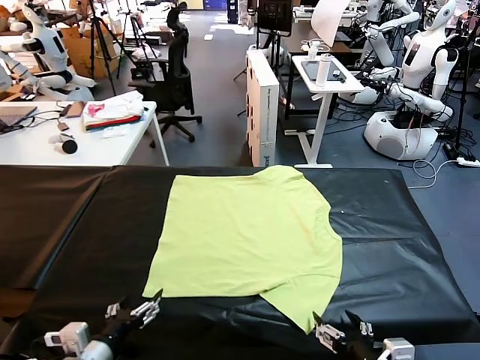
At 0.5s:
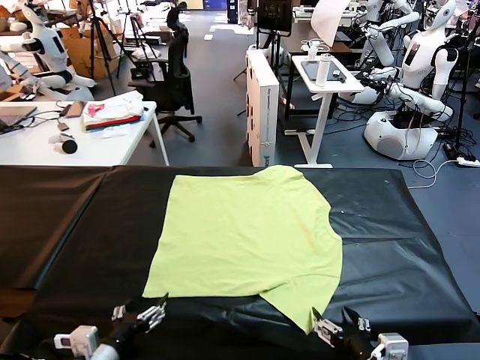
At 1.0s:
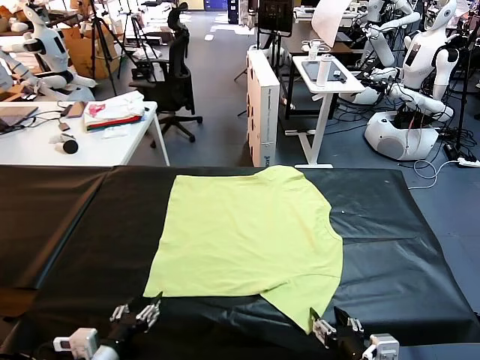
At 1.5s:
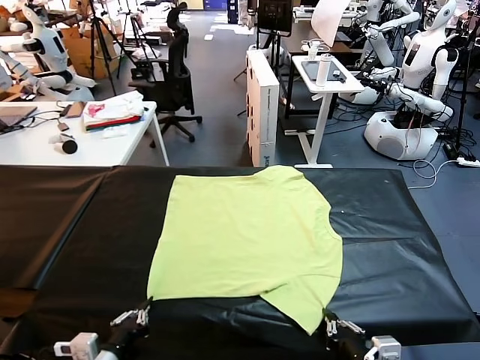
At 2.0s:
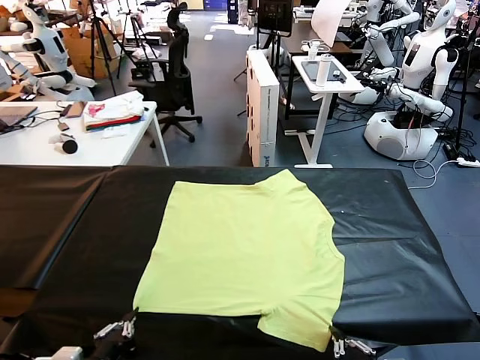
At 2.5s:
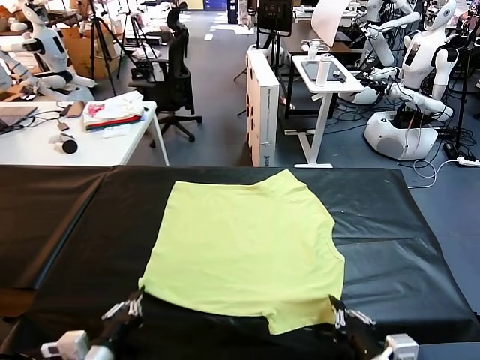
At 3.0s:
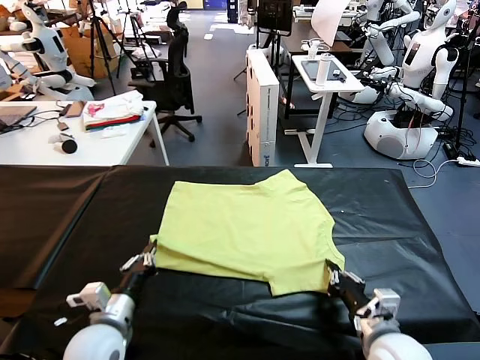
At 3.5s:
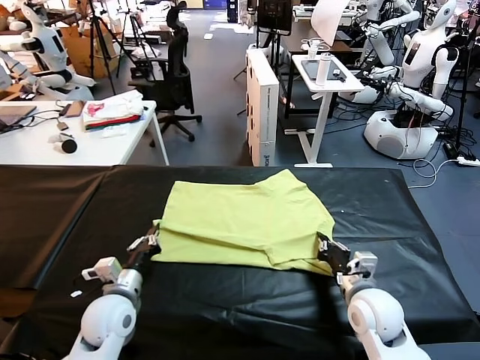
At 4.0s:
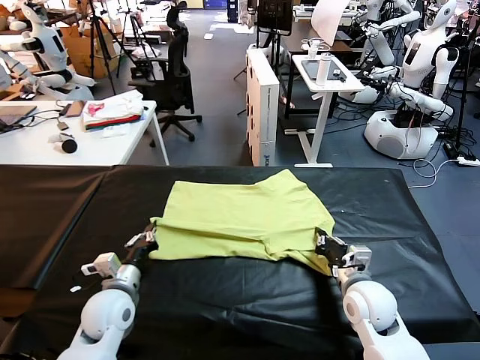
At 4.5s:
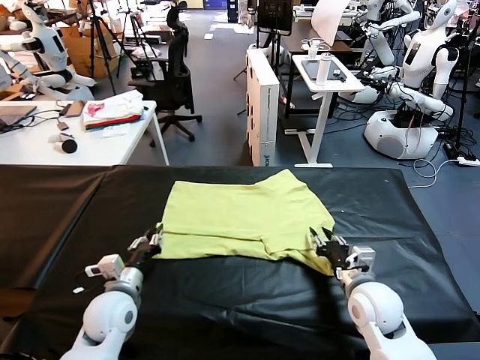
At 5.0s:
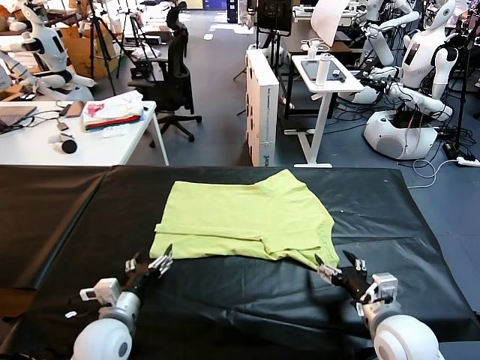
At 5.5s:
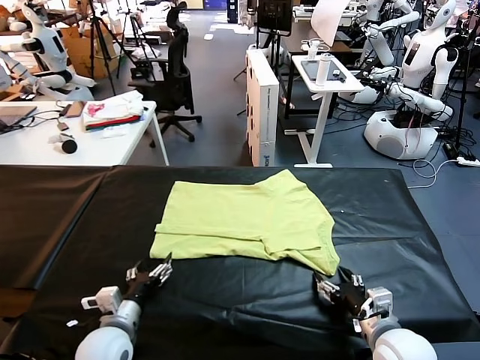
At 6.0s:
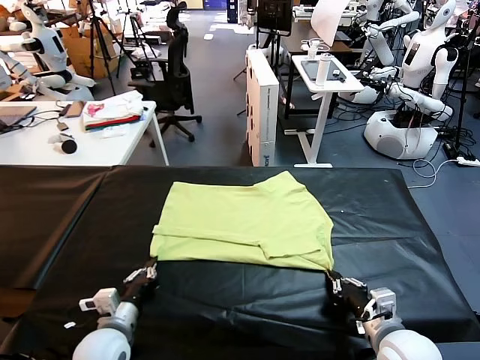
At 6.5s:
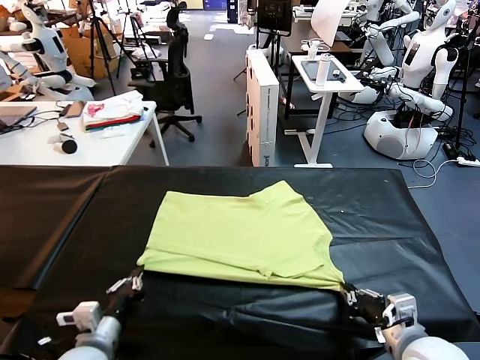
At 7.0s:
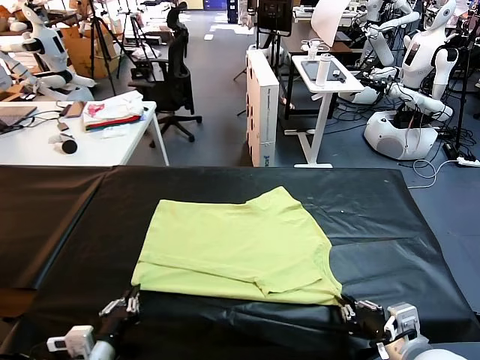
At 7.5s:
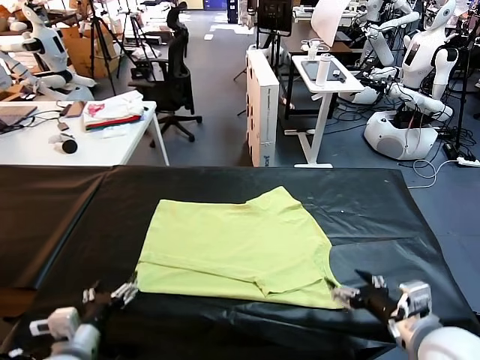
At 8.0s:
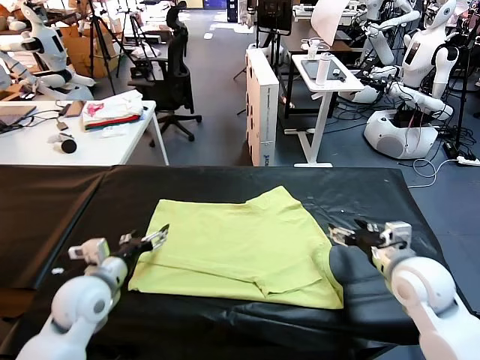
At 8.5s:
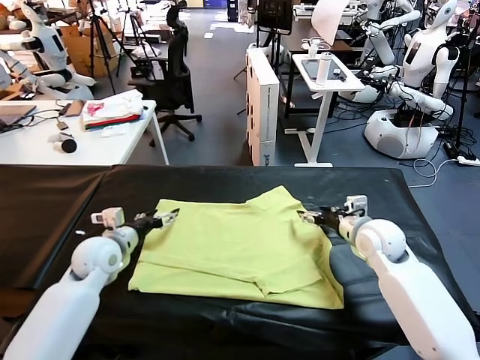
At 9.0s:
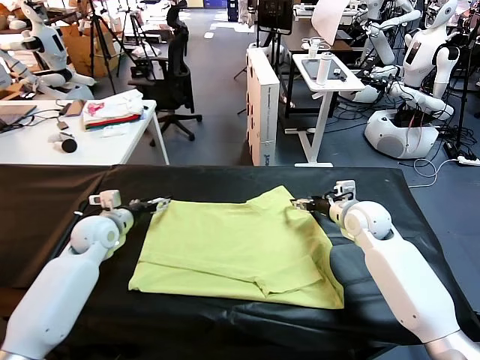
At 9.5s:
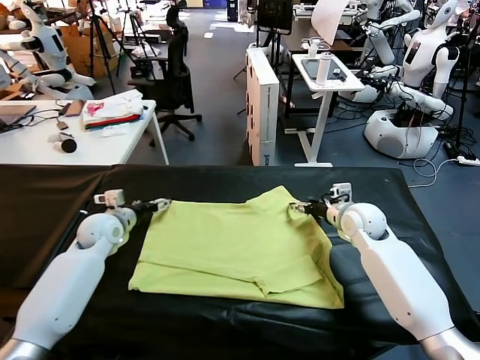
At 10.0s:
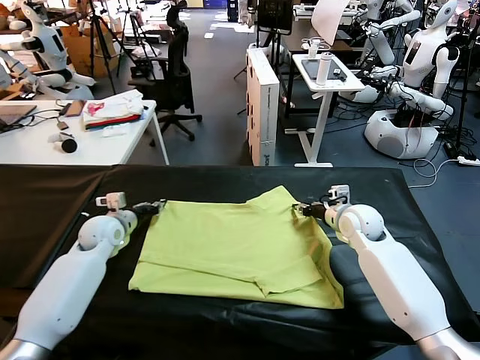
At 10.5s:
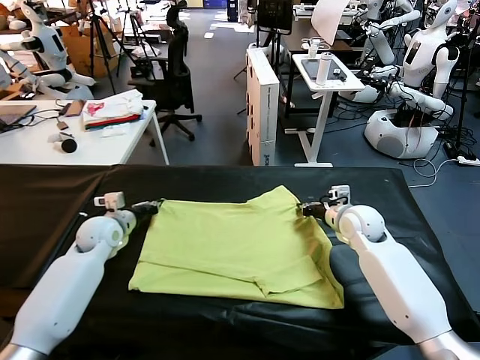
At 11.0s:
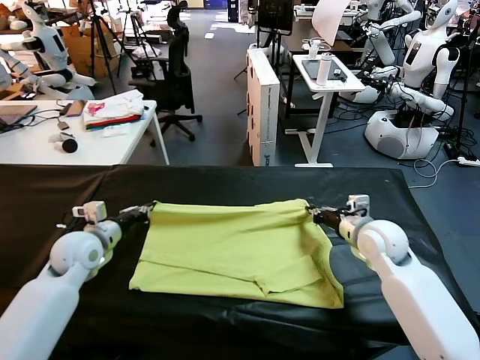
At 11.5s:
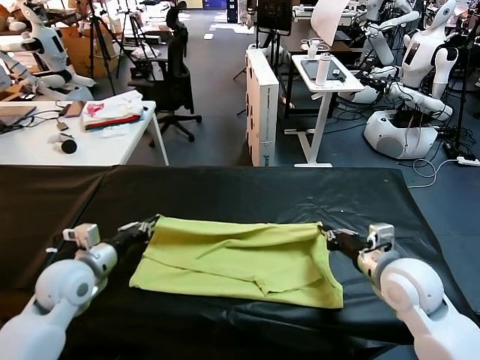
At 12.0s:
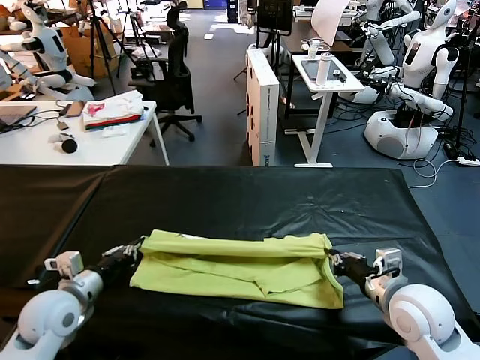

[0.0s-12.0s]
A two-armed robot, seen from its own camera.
Task of the whole recording: fold and organize the clothes.
Step, 0.0s to 1.5s: use both grippers simultaneously to clamp the lower edge of the clothing fabric.
Step, 2.0s to 4.5s: use both grippers to drag the lower edge of the fabric forward and fold it over the upper edge.
Step, 5.0s to 7.0s: Drag the clothes downward with both gripper.
Step, 7.5s to 10.0s: use both grippers simultaneously to clamp the upper edge of the clothing fabric.
2.0s to 4.0s: Both grippers travel together forward, approximately 20 cm.
4.0s to 6.0s: The grippers both shift backward by roughly 10 cm. The left gripper opens, then closes once more. Meanwhile the right gripper opens, then closes again.
6.0s to 8.0s: The left gripper moves forward and upward, some 10 cm, and opens up. The right gripper heads forward, covering about 20 cm, and opens.
8.0s to 10.0s: Both grippers move forward, approximately 15 cm. The right gripper closes, while the left gripper closes.
10.0s to 12.0s: Both grippers move backward, some 20 cm.

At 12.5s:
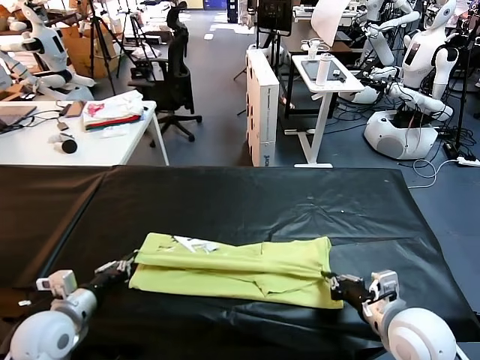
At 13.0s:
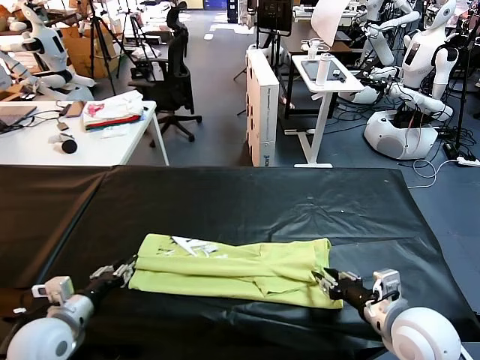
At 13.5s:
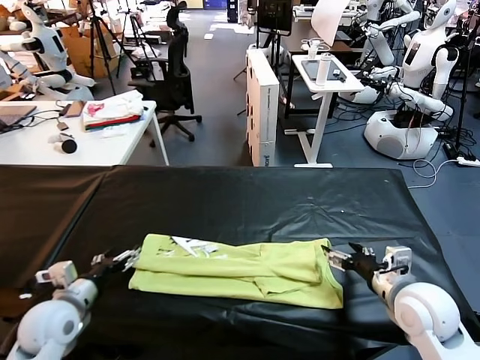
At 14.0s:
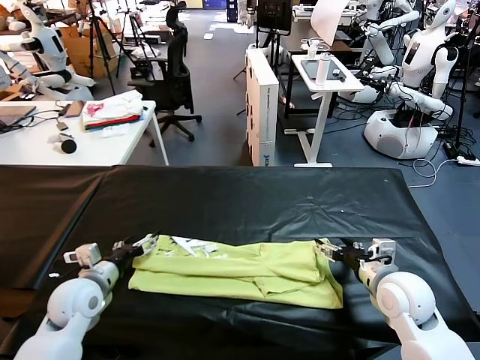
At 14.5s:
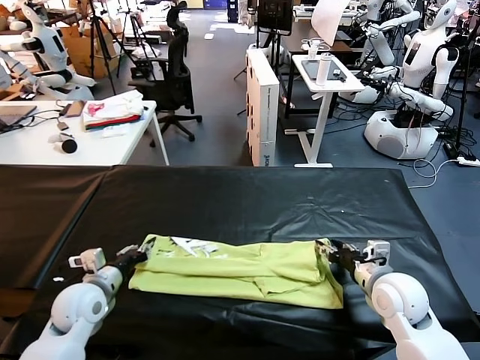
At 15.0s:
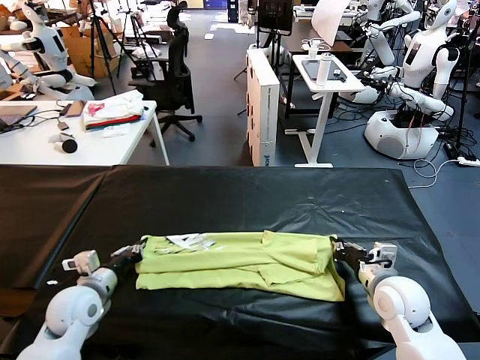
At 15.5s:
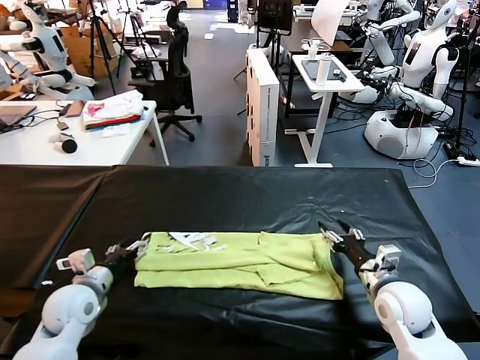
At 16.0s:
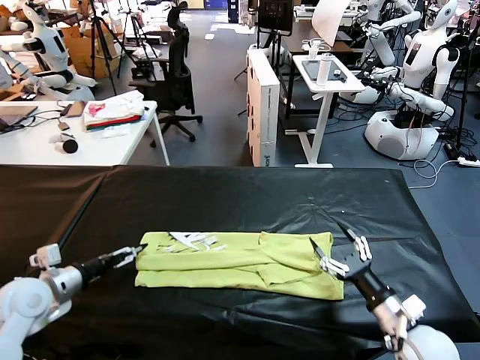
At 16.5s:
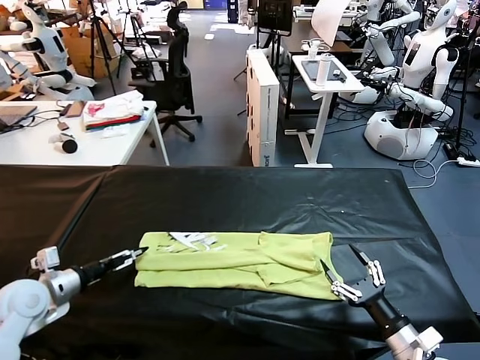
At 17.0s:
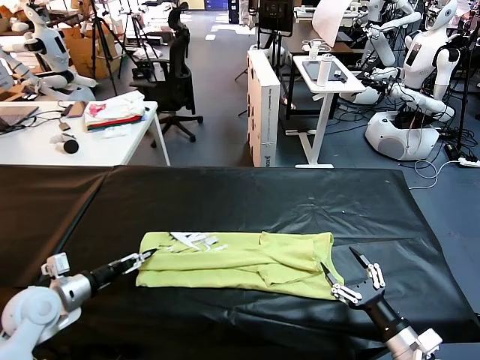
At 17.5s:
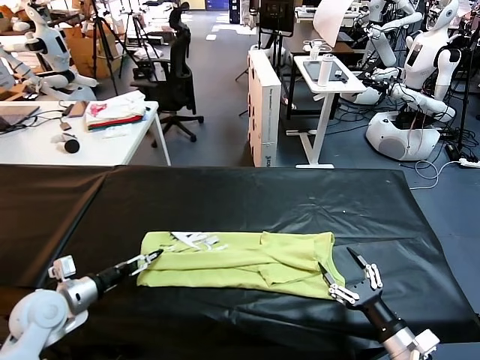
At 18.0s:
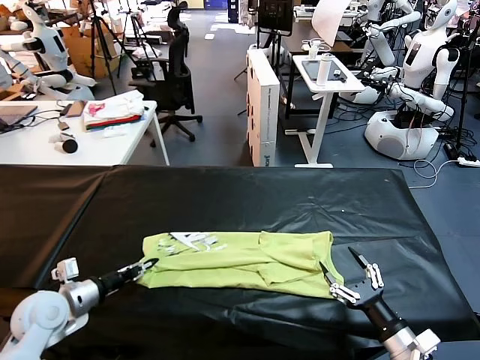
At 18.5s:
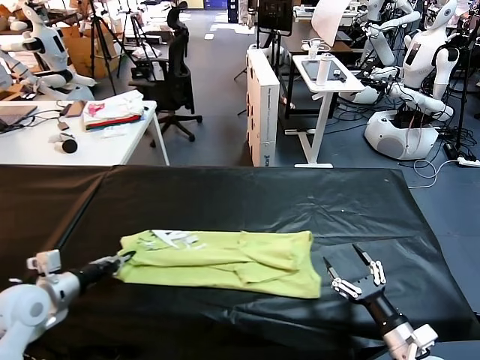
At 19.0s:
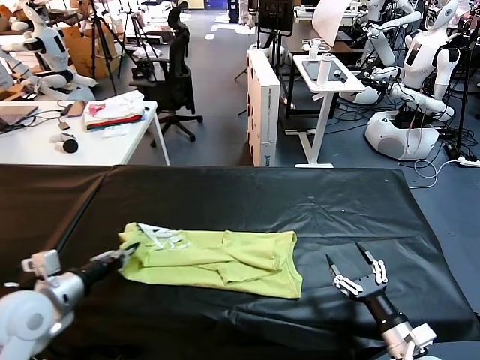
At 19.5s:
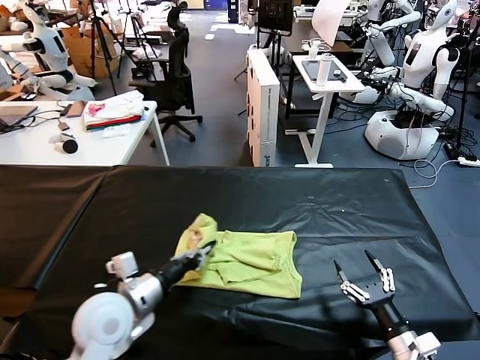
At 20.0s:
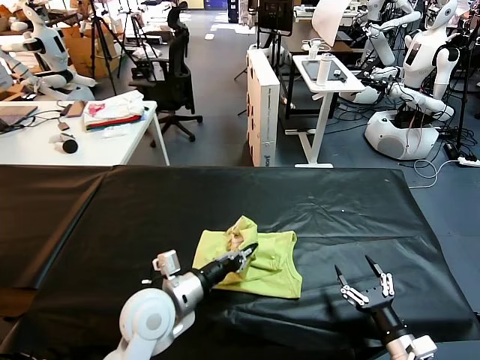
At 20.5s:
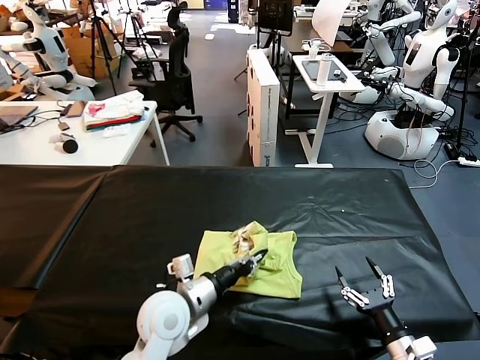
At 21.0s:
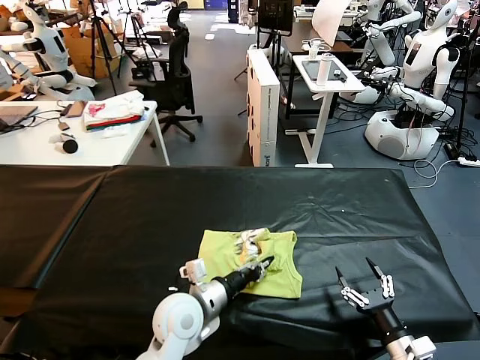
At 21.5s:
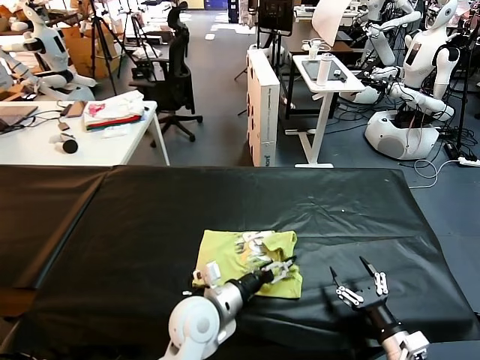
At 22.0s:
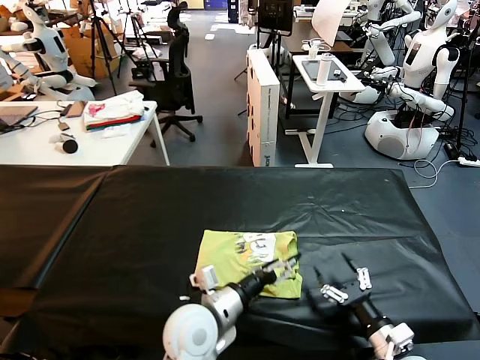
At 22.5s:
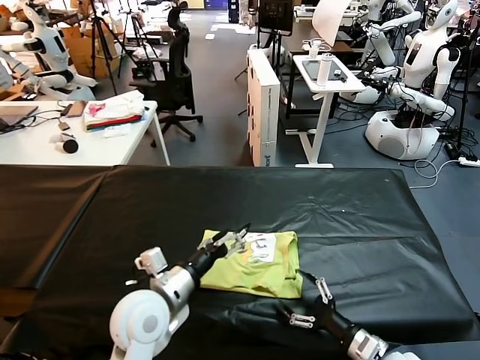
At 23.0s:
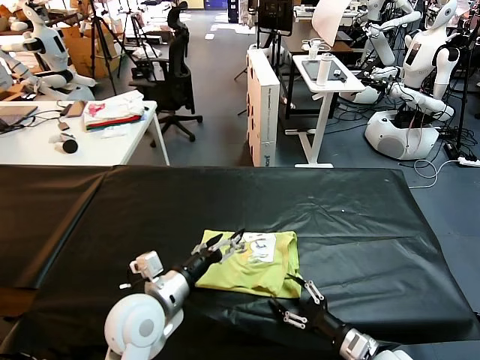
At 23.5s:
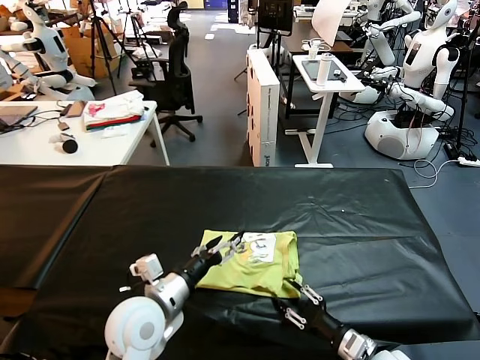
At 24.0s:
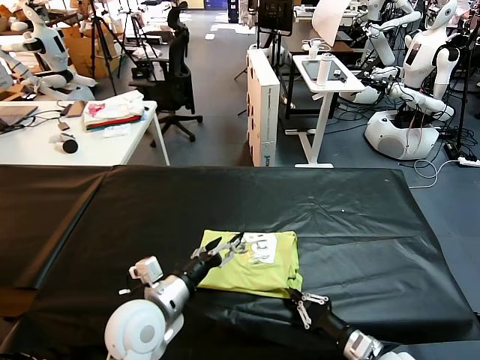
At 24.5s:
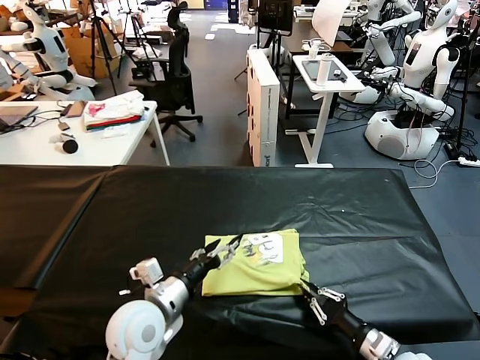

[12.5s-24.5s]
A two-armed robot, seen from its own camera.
Task of the whole recording: fold and organize the clothes.
Step, 13.5s to 18.0s: use the left gripper to clamp the left edge of the fabric.
Step, 18.5s to 21.5s: use the left gripper to drag the left edge of the fabric to the left and folds it over the right edge.
12.5s to 14.5s: Both grippers travel together forward, roughly 10 cm. The left gripper opens, then closes once more; the right gripper opens, then closes once more.
14.5s to 16.5s: The right gripper is displaced backward by approximately 15 cm, and opens. Meanwhile the left gripper moves to the left, some 10 cm, and opens up.
16.5s to 18.5s: The left gripper closes.
18.5s to 20.5s: The left gripper heads to the right, covering some 30 cm.
20.5s to 22.5s: The left gripper goes to the right and returns, approximately 5 cm each way, and opens up, while the right gripper moves to the left, some 5 cm.
22.5s to 24.5s: The right gripper closes up.

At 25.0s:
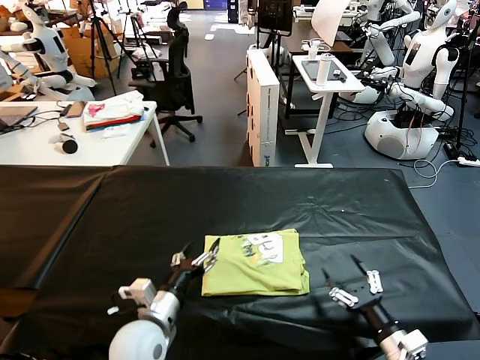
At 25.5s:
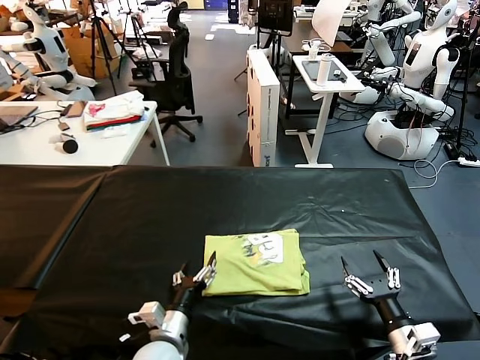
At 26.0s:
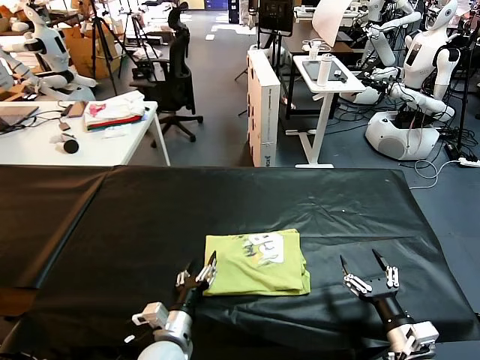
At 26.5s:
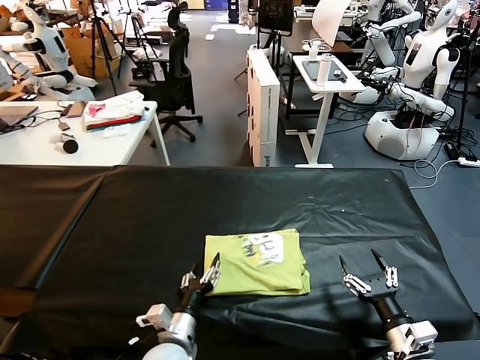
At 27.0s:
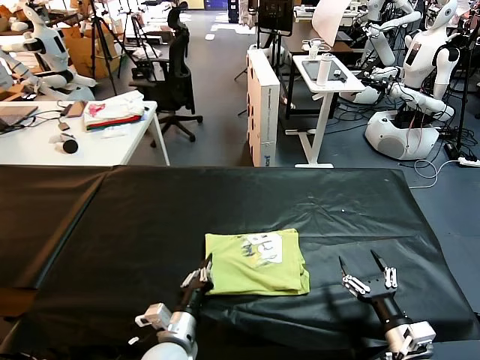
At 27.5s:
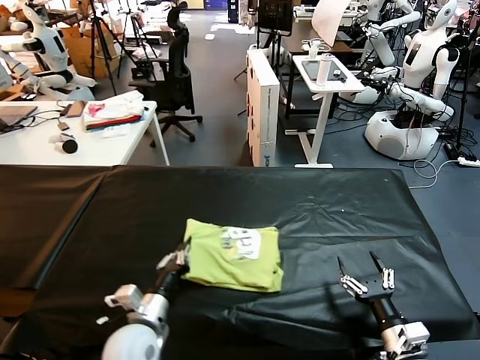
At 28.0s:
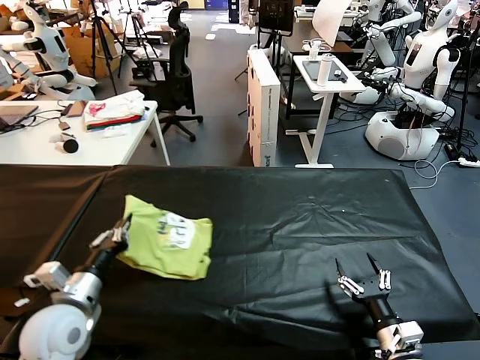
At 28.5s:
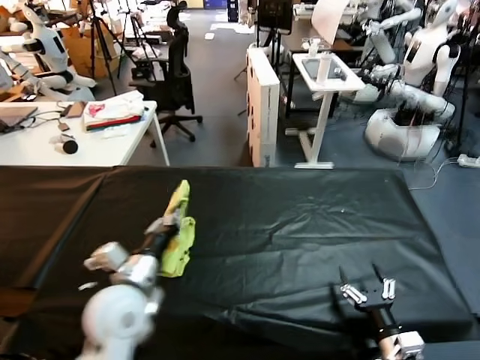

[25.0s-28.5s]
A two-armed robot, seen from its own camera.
Task of the whole recording: fold and organize the clothes.
25.0s to 27.0s: The left gripper is displaced downward by approximately 5 cm, and closes.
27.0s to 28.5s: The left gripper heads upward and forward, covering about 15 cm, and goes to the left and returns, roughly 15 cm each way.
